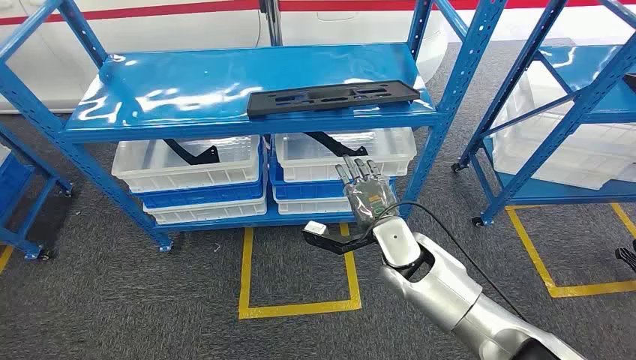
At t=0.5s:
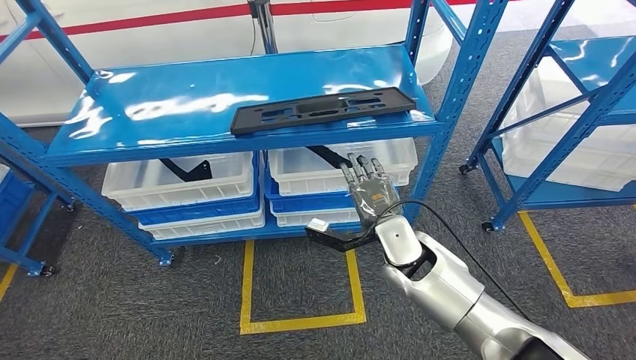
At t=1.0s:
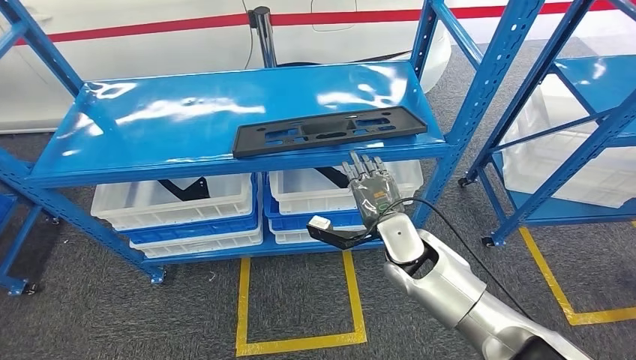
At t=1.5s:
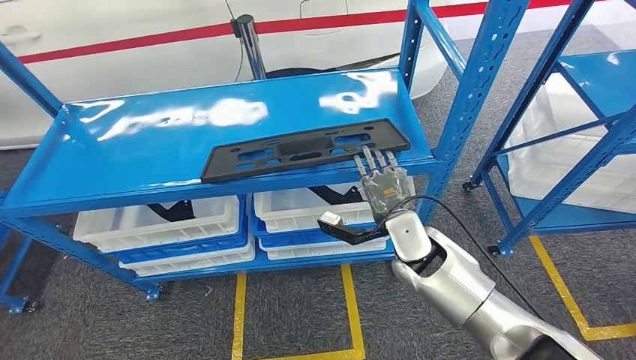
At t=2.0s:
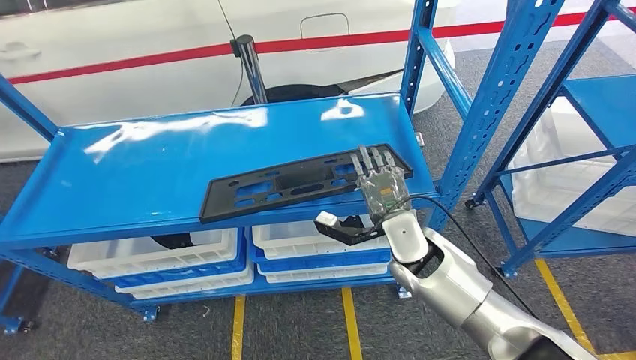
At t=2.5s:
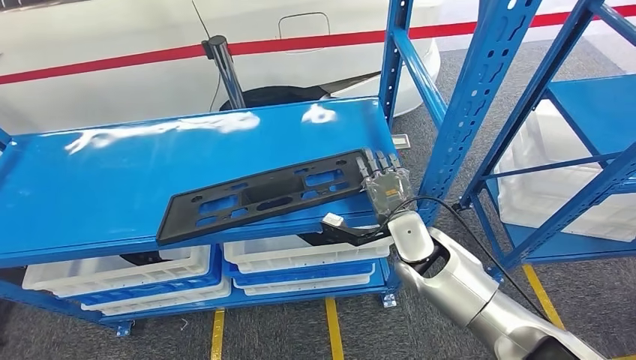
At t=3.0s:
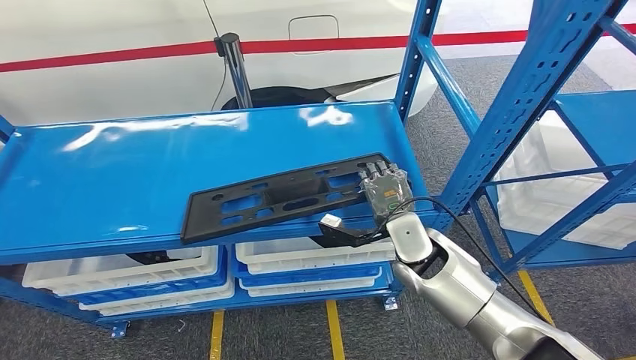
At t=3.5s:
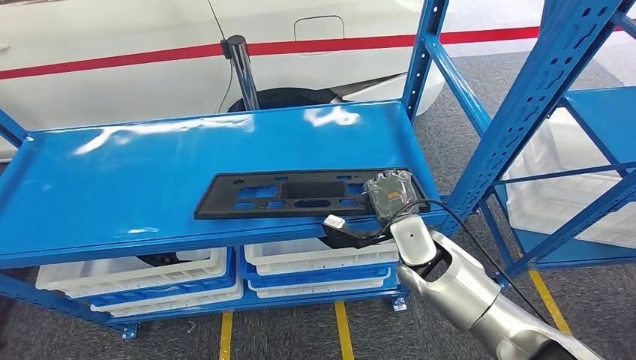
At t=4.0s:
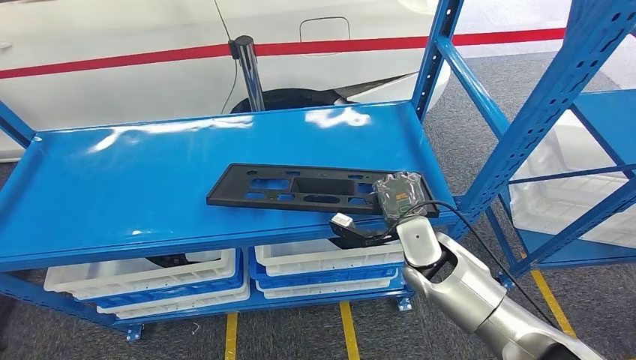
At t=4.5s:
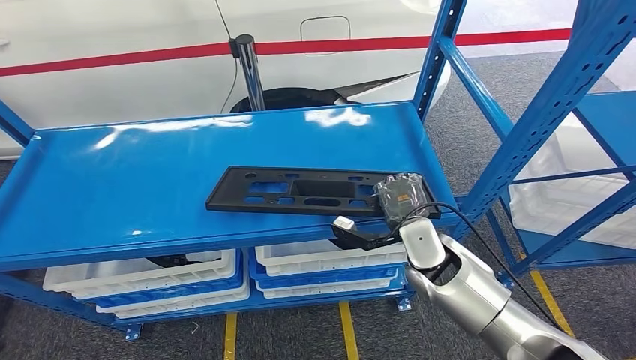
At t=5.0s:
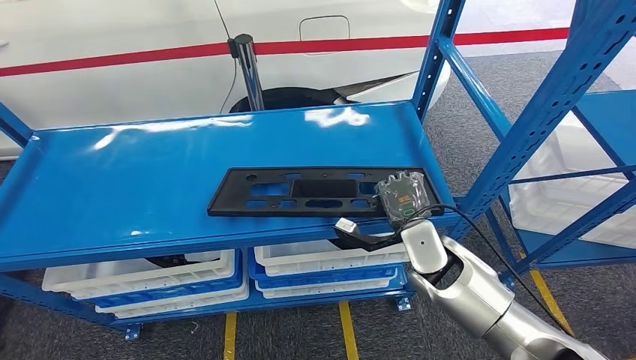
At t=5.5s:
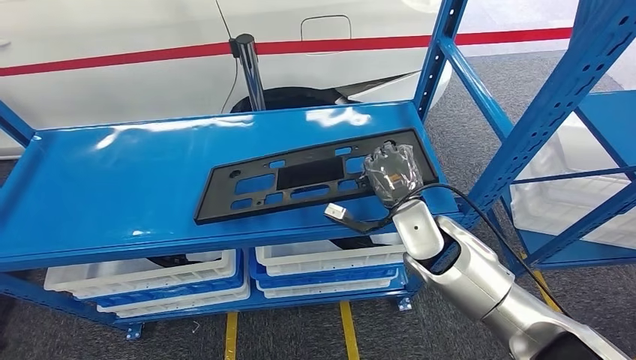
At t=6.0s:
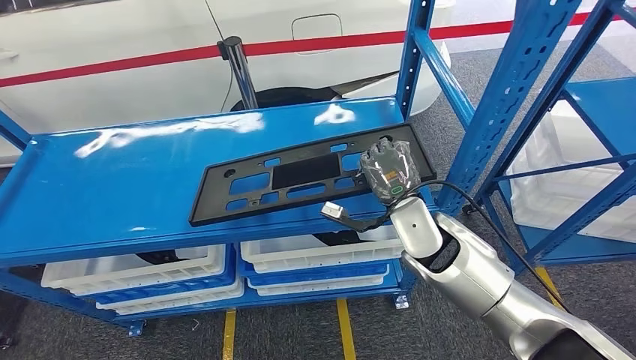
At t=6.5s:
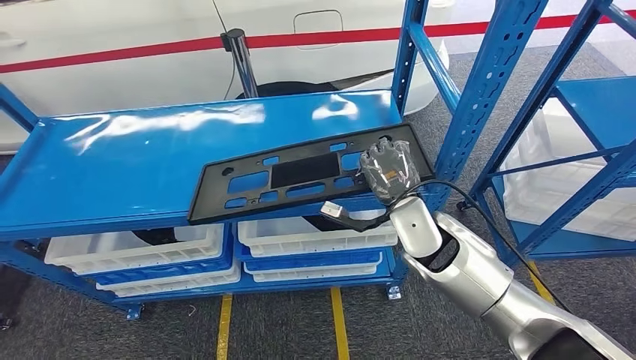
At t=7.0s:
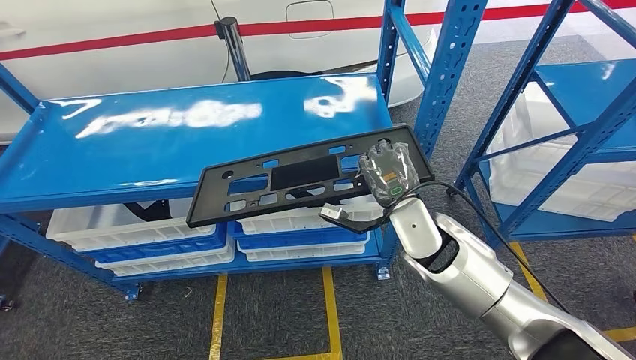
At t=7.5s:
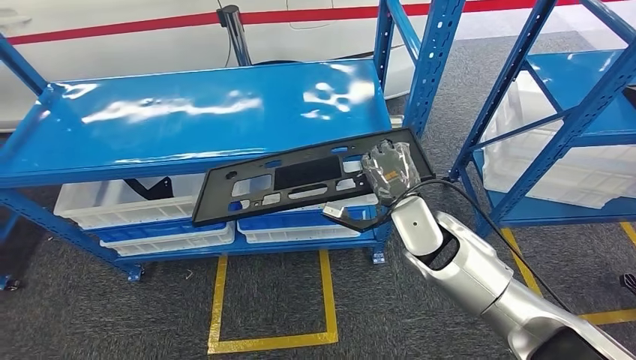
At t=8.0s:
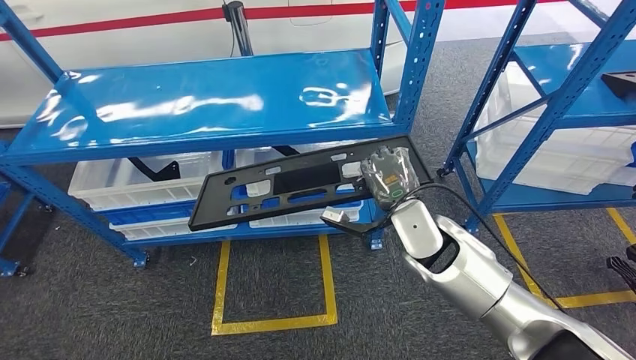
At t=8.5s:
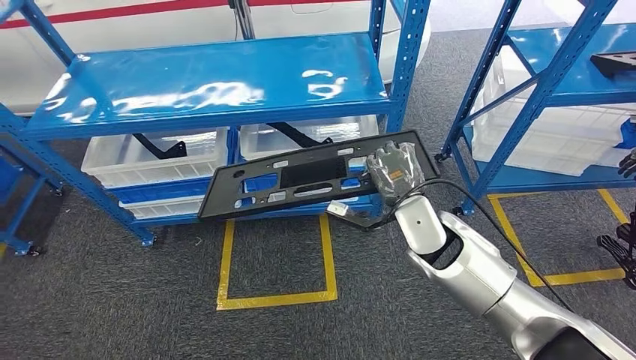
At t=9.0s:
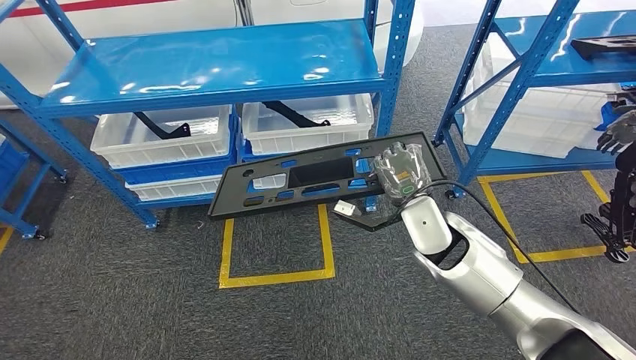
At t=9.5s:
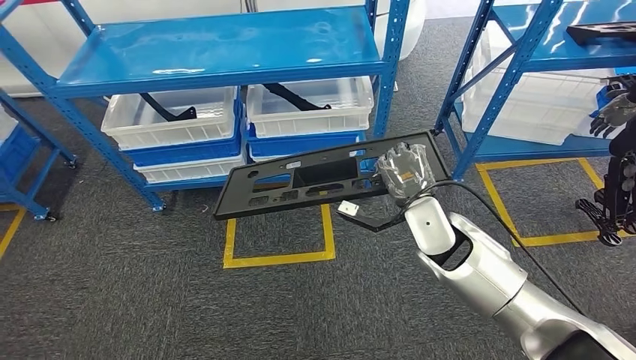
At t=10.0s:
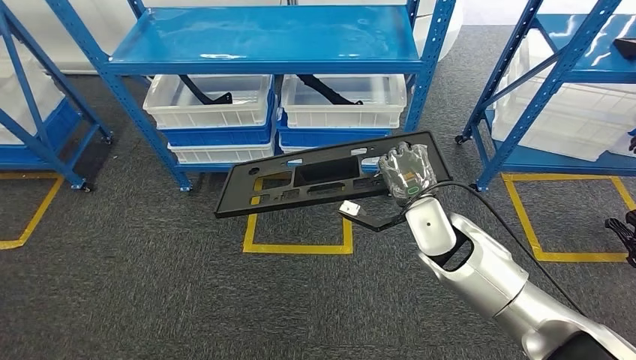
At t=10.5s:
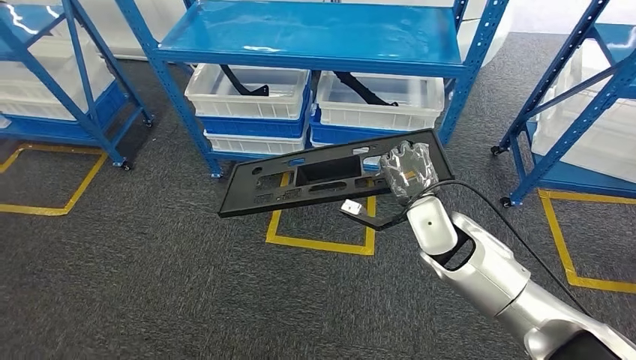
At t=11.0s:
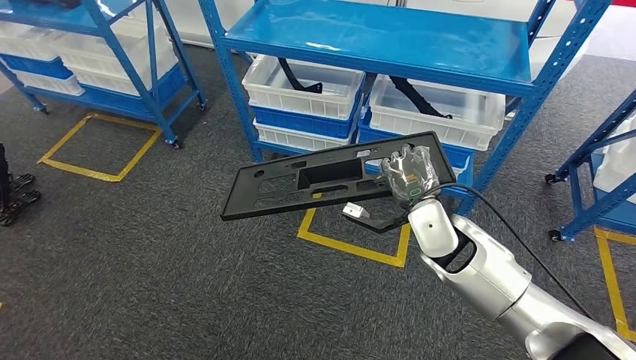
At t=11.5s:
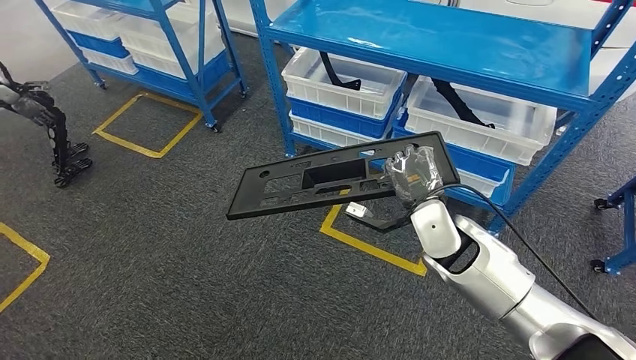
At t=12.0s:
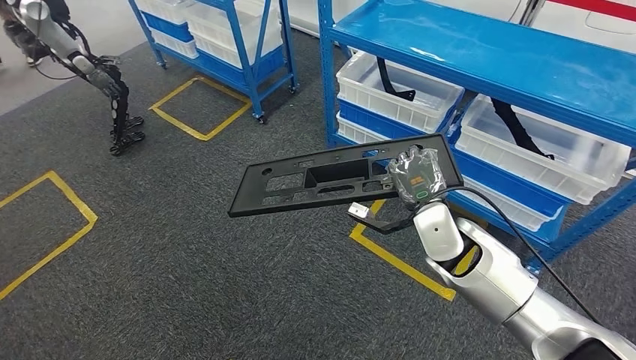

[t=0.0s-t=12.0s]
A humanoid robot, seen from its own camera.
Step, t=0.0s to t=7.5s: Pick up the large material from the shelf.

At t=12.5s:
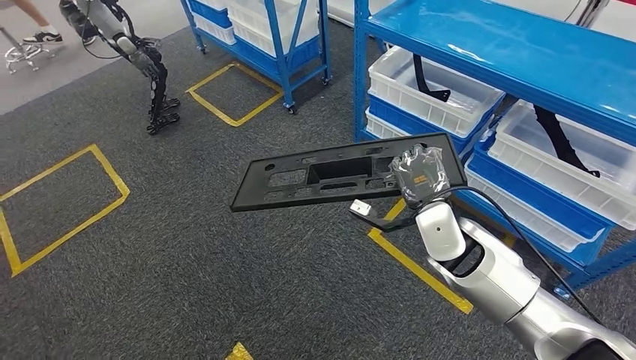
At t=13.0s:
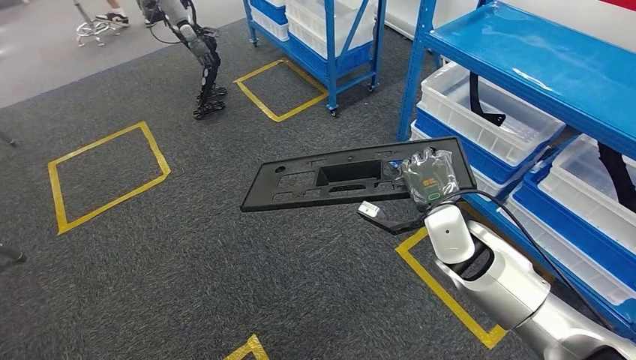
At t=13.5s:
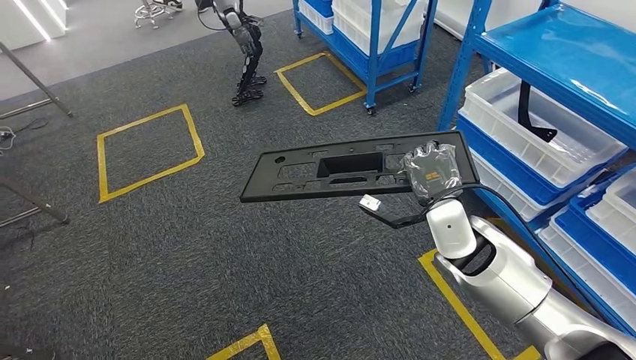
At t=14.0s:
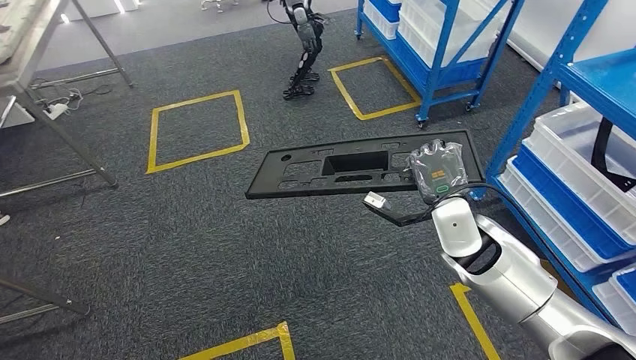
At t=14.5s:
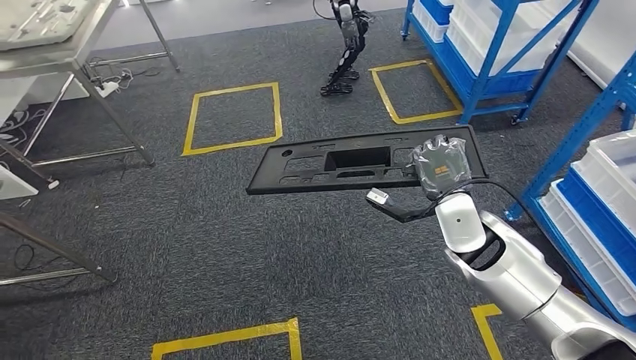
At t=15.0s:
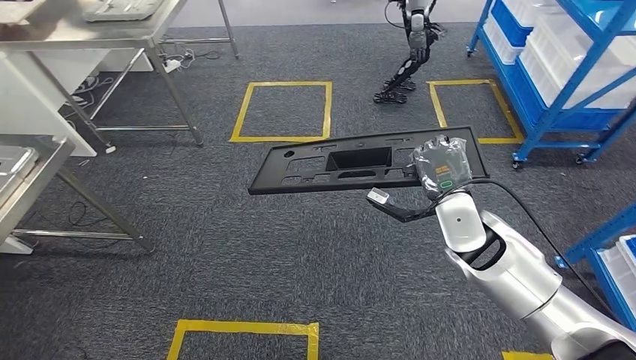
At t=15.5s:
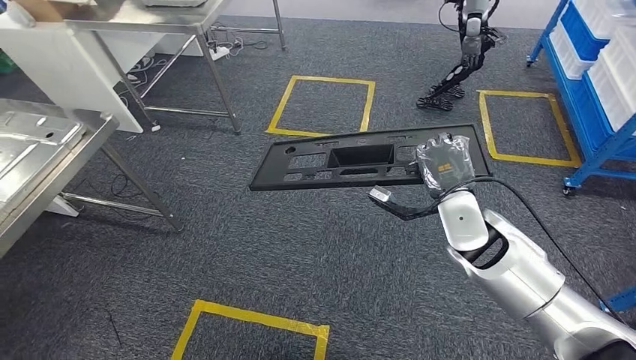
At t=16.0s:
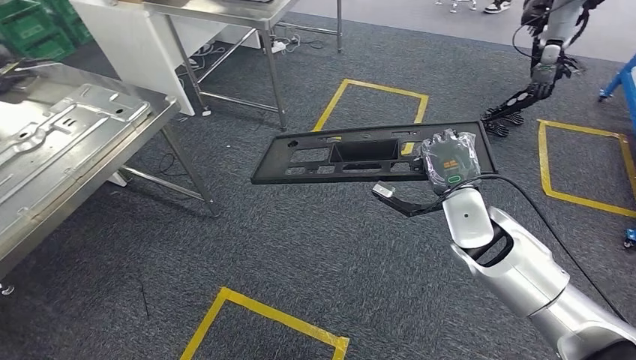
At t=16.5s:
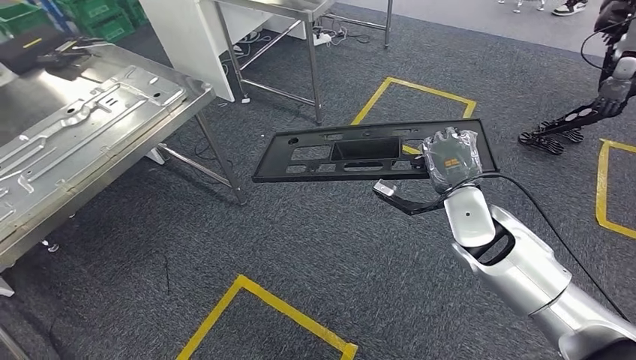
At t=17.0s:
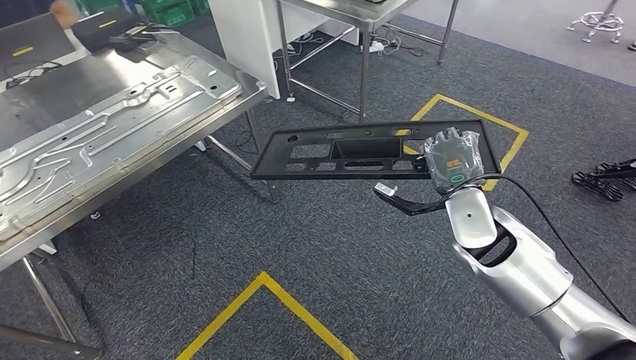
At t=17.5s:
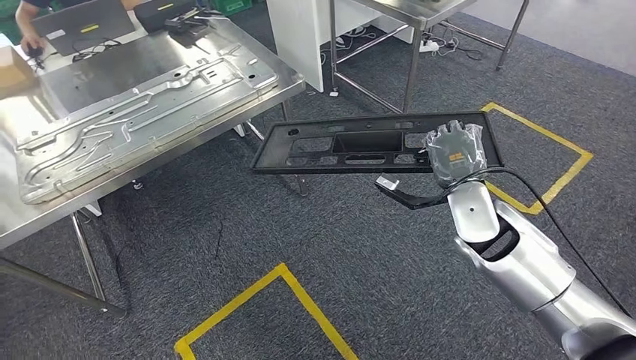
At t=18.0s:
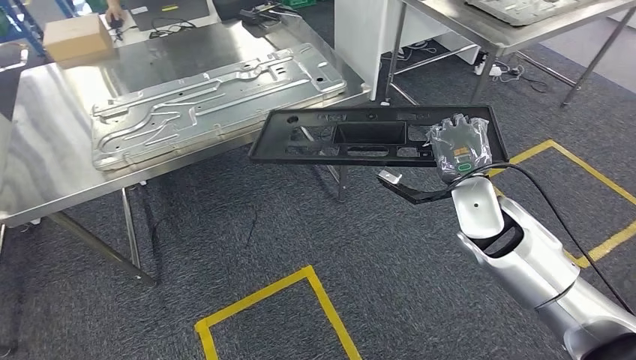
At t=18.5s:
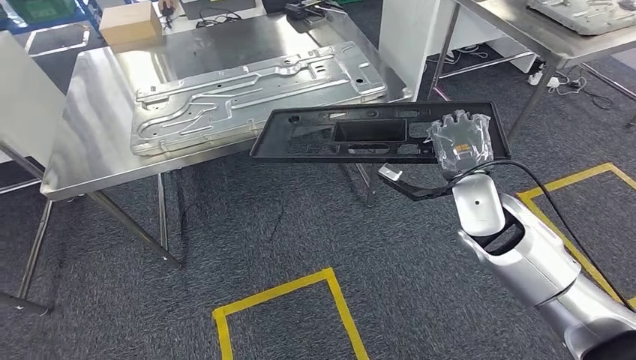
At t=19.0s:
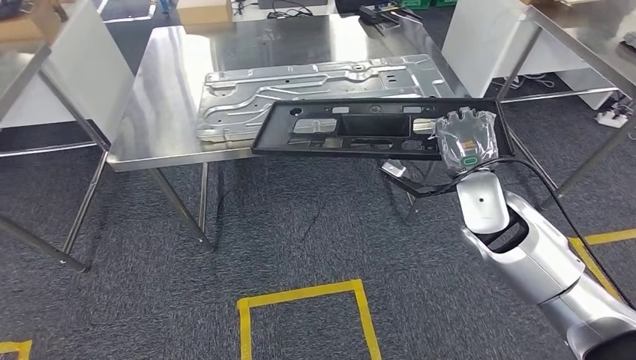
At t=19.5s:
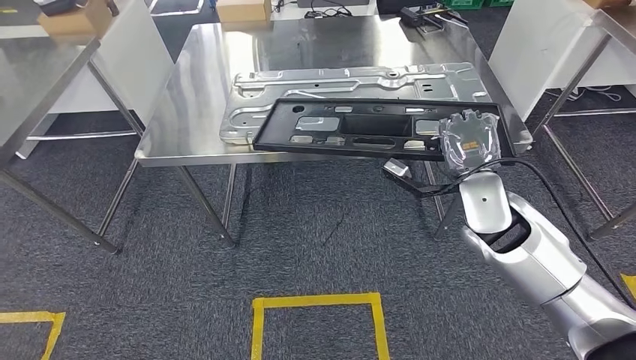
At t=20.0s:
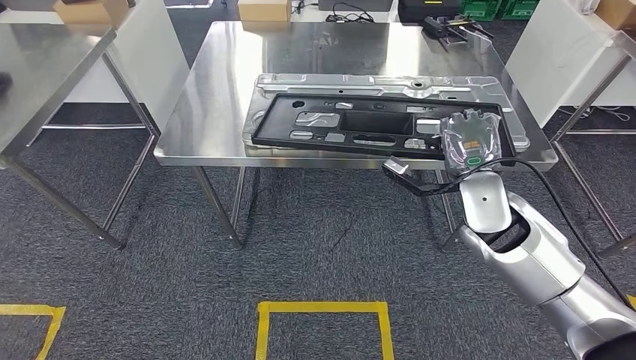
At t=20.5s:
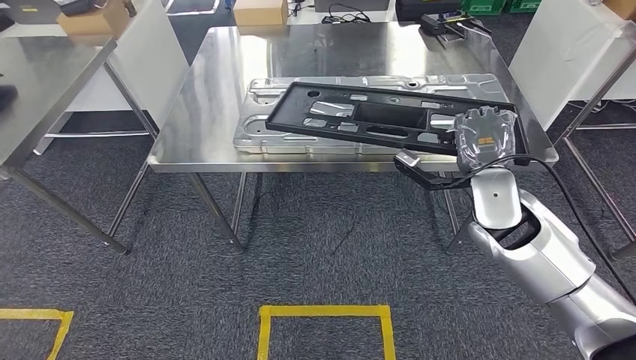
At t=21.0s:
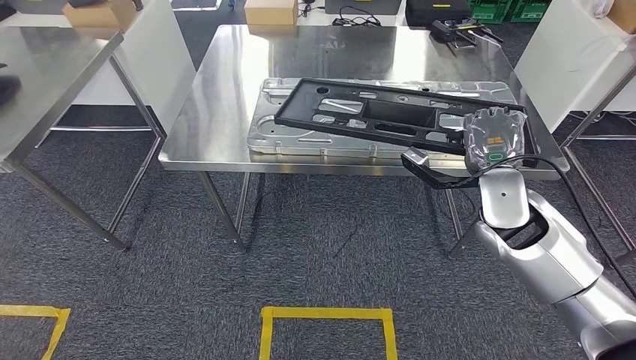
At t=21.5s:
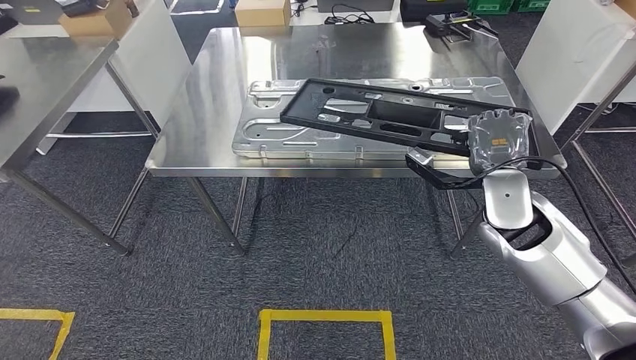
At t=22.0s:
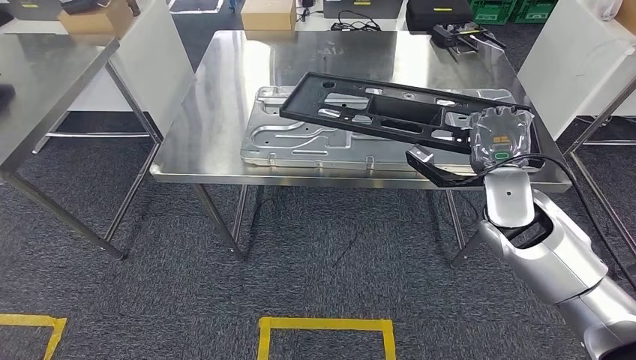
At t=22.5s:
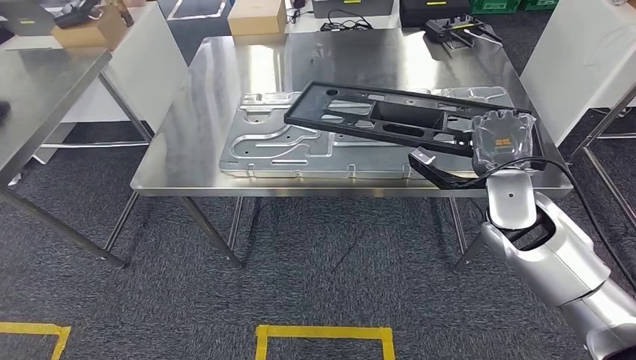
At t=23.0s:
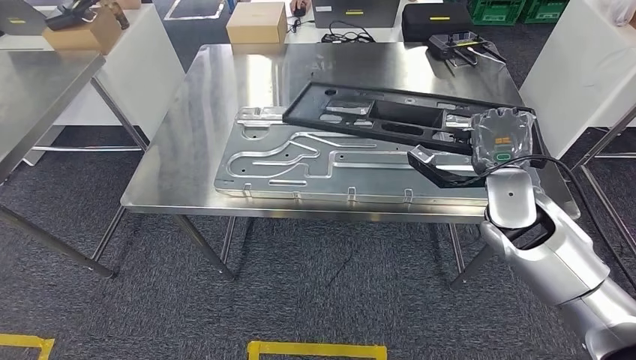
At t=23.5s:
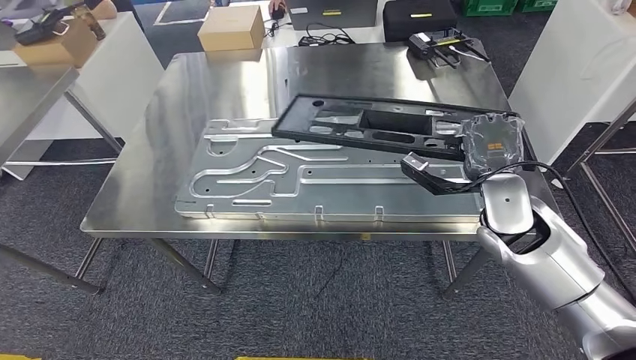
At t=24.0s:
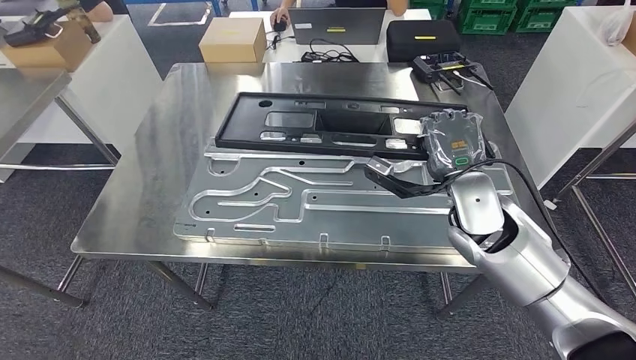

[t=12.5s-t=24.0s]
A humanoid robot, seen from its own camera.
Step, t=12.5s to t=19.0s: Move the large material to the workbench.
